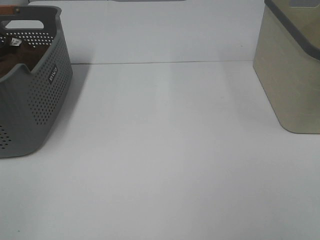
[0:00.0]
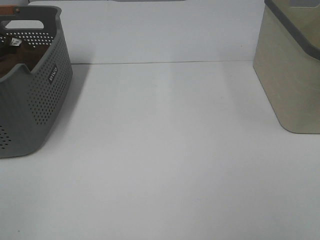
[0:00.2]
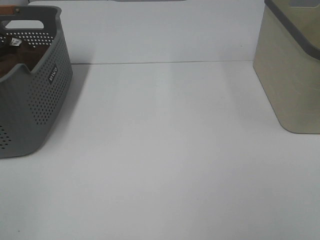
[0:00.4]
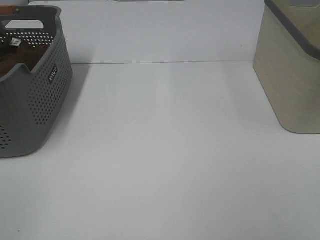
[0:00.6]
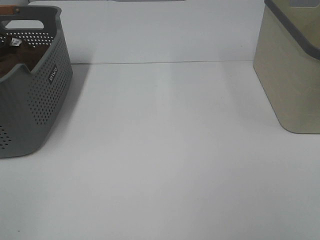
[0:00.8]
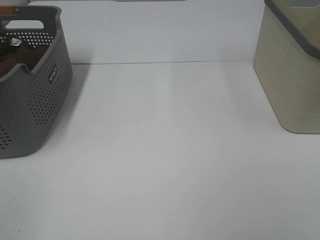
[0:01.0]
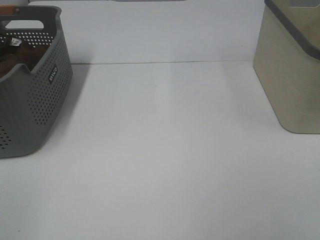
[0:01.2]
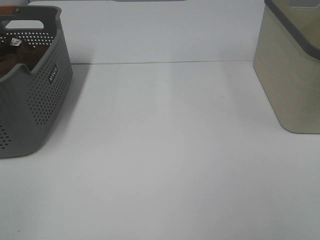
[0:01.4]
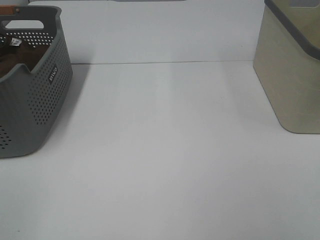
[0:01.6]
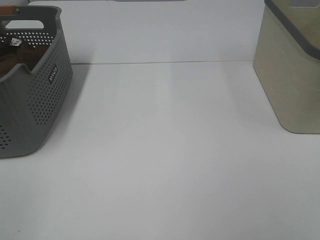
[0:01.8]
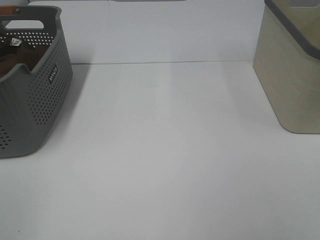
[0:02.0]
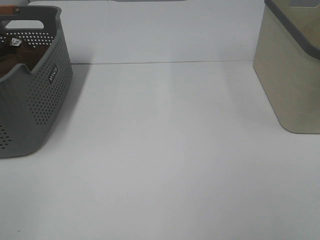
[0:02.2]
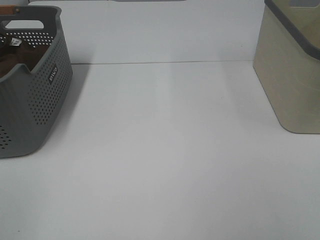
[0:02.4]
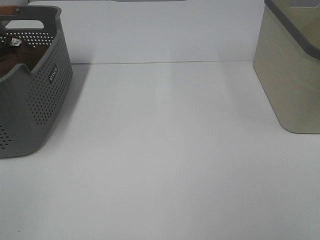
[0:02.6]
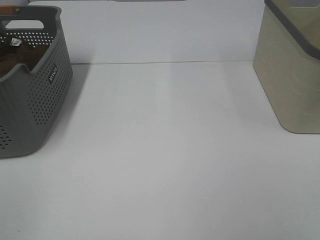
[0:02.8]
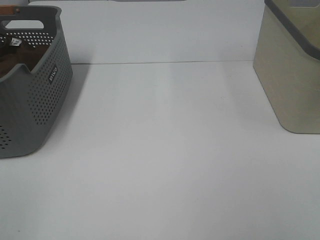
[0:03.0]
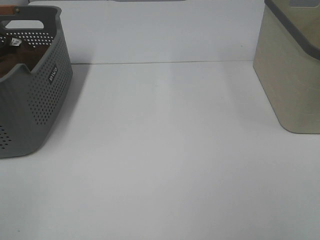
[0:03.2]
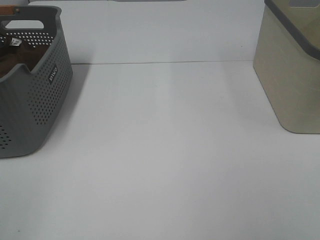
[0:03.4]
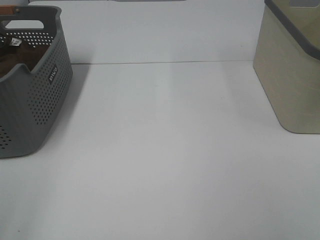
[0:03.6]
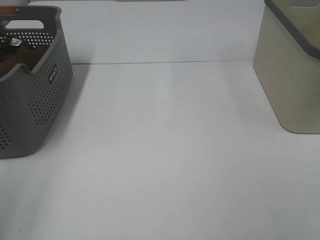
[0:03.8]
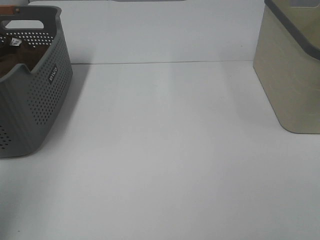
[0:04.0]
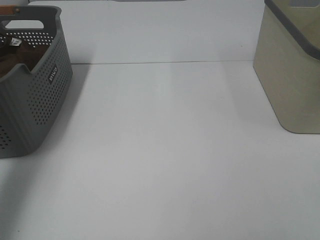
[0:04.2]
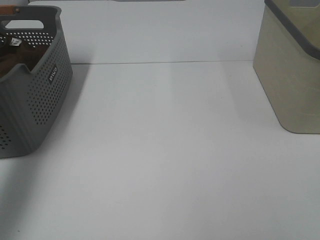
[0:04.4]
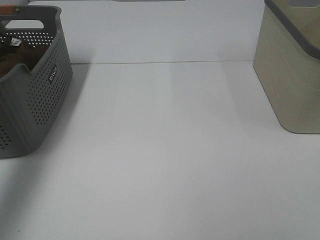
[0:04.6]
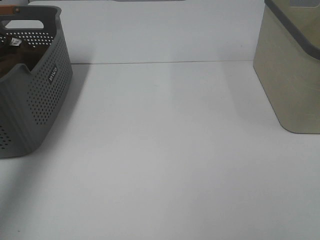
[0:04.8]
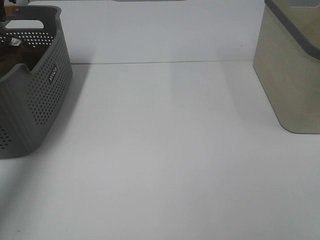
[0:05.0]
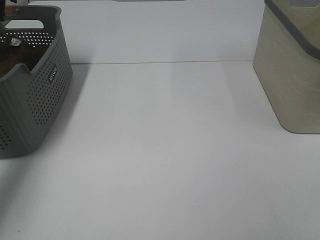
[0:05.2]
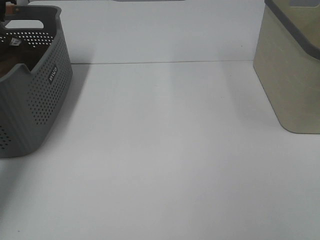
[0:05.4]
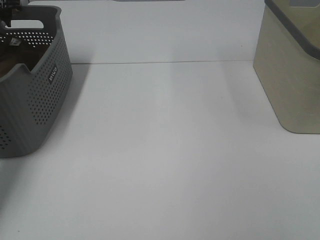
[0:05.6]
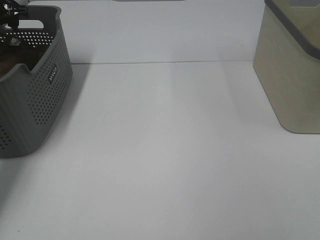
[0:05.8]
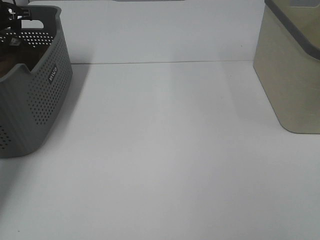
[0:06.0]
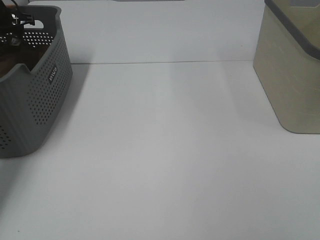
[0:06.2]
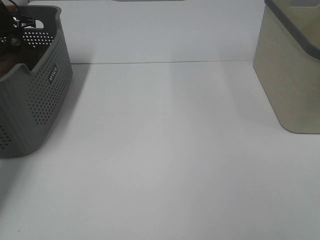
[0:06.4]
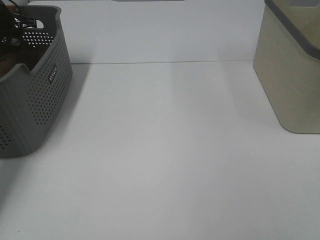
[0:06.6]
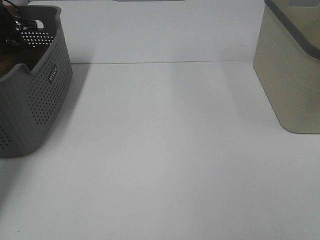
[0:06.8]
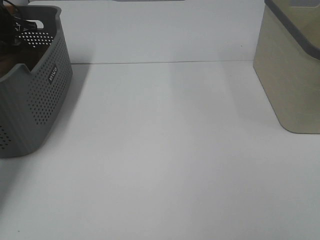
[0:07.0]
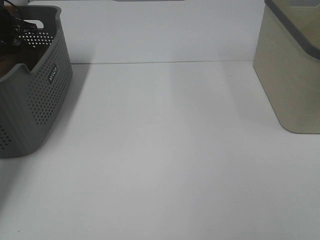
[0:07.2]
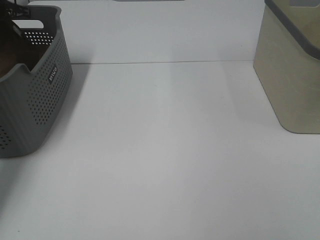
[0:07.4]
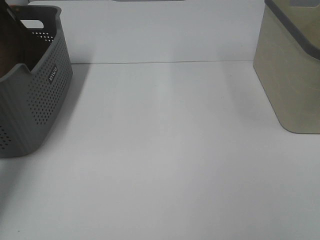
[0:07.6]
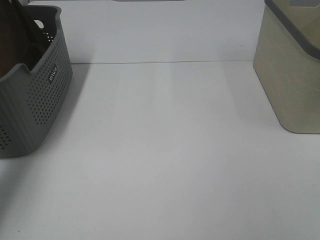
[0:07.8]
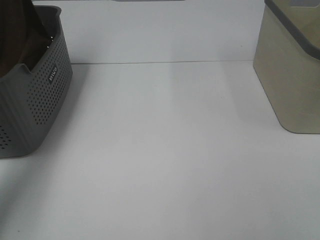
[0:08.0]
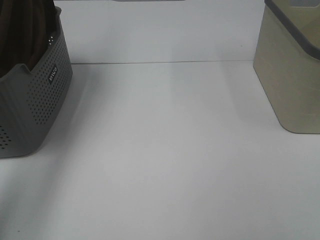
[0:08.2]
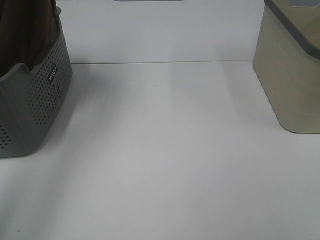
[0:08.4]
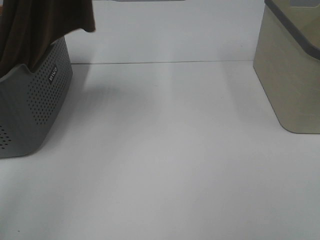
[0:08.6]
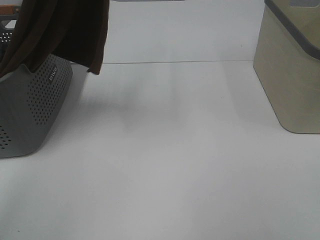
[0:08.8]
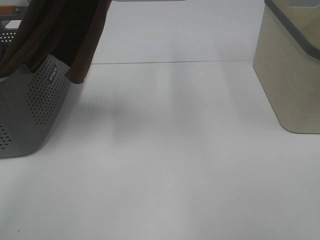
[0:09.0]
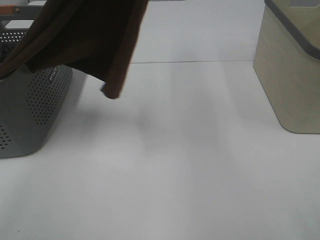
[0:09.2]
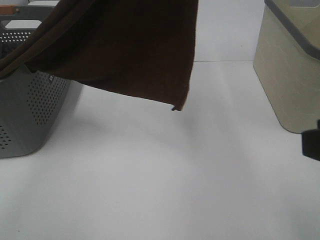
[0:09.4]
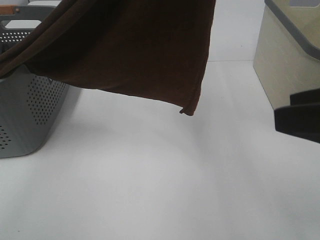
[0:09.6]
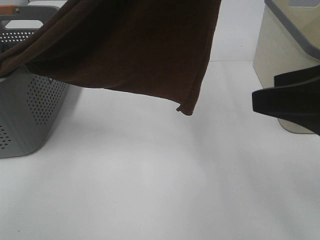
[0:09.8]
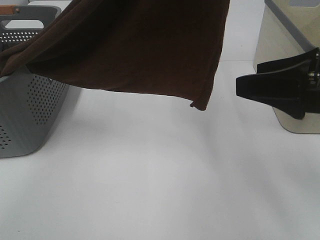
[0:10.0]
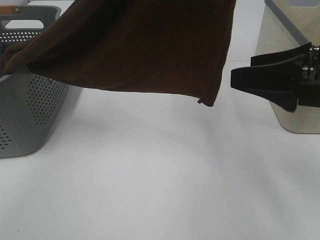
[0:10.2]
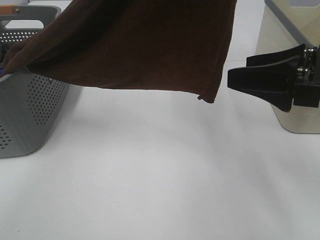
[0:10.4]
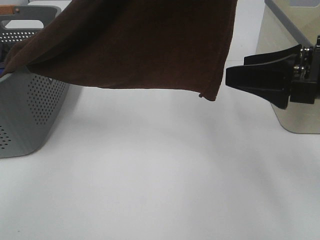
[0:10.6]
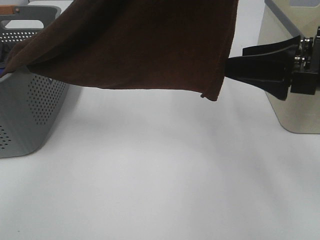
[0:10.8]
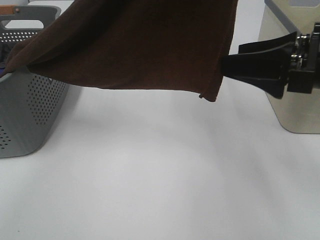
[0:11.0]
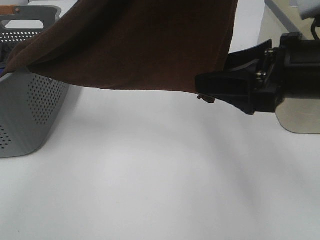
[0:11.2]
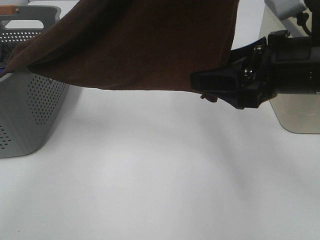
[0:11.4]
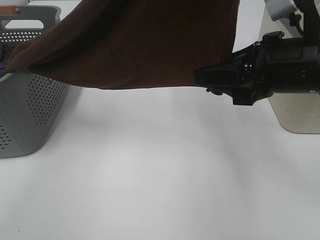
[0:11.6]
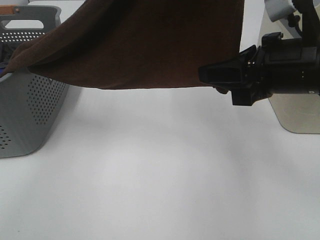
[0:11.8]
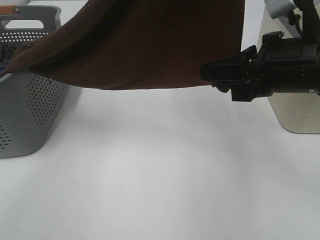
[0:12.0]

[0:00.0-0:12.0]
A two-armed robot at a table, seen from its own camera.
Task of the whole recording: Remove the towel and place it.
Step, 0:07.8 to 0:11.0: Right hand: grab a corner of the brown towel and straighten it.
0:00.0 to 0:03.0: The two grippers keep their place.
0:03.0 to 0:04.4: The left gripper goes about 30 cm forward.
0:04.4 to 0:06.0: The left gripper is displaced forward and downward by approximately 30 cm.
0:07.6 to 0:09.0: The left gripper moves to the right, backward and upward, about 40 cm.
0:09.0 to 0:10.4: The left gripper shifts roughly 10 cm to the right and backward, while the right gripper is displaced forward by approximately 20 cm, and opens.
0:10.4 to 0:12.0: The right gripper shifts by some 5 cm, and closes its fingers.

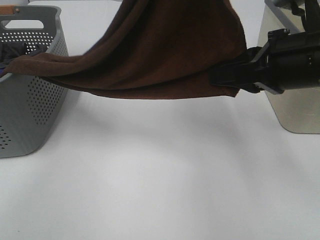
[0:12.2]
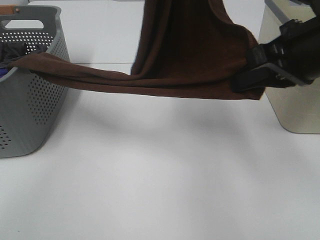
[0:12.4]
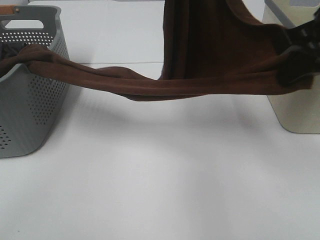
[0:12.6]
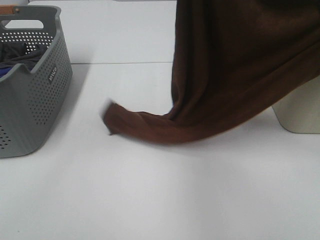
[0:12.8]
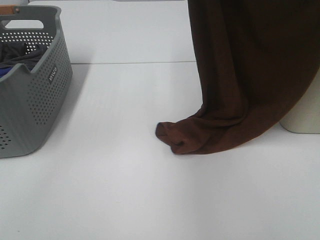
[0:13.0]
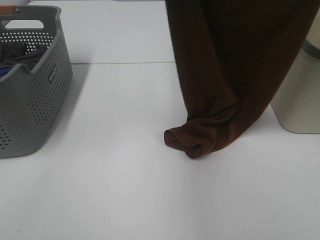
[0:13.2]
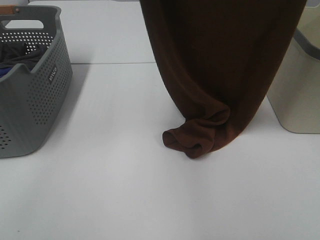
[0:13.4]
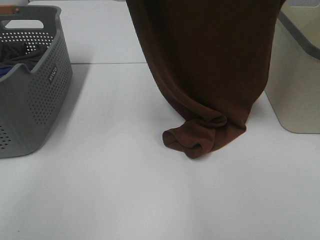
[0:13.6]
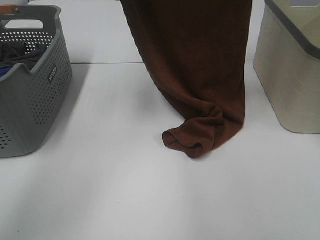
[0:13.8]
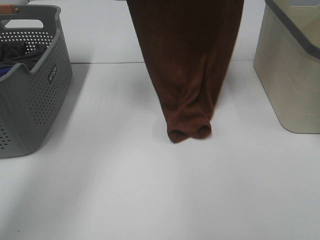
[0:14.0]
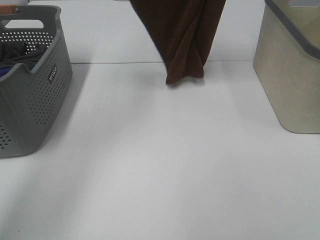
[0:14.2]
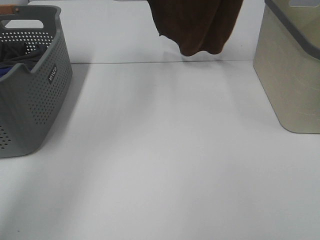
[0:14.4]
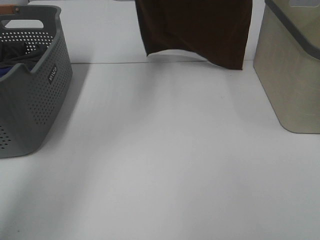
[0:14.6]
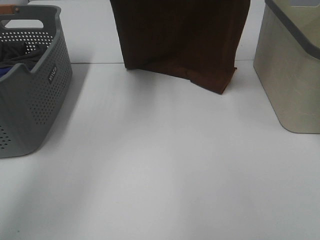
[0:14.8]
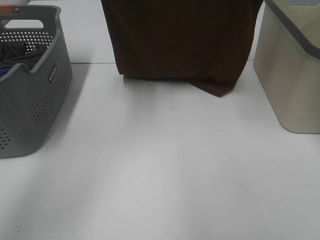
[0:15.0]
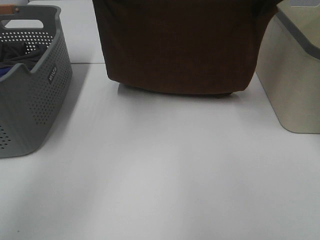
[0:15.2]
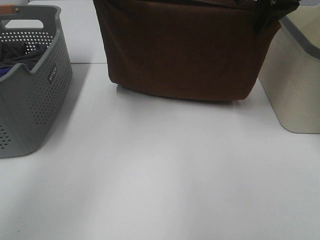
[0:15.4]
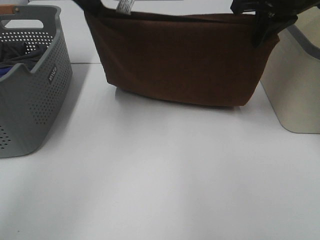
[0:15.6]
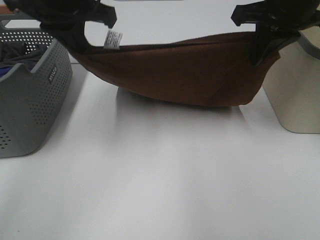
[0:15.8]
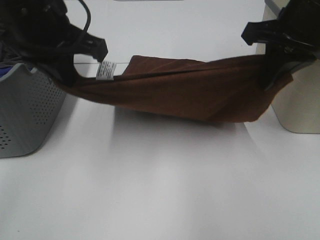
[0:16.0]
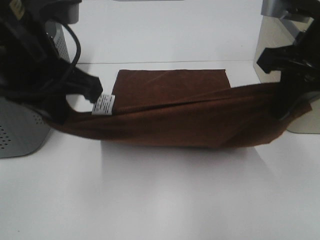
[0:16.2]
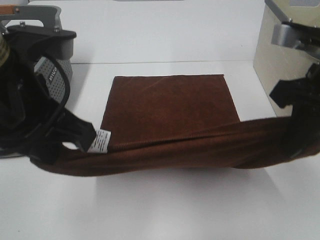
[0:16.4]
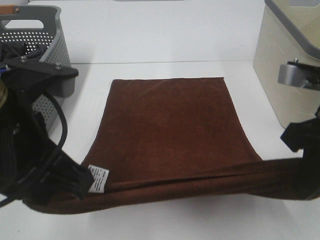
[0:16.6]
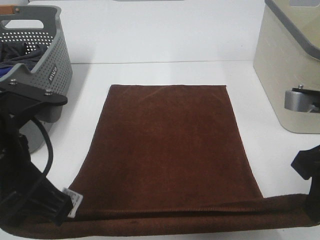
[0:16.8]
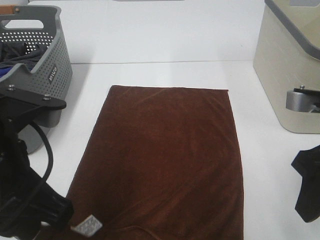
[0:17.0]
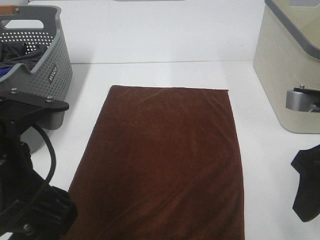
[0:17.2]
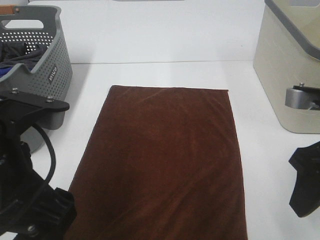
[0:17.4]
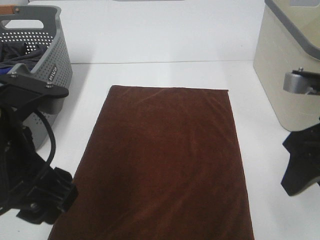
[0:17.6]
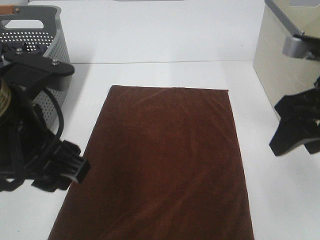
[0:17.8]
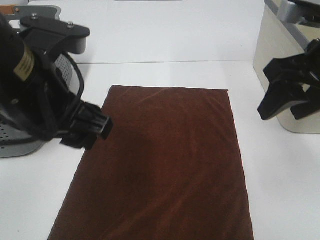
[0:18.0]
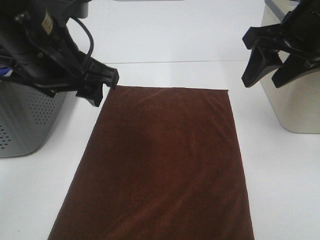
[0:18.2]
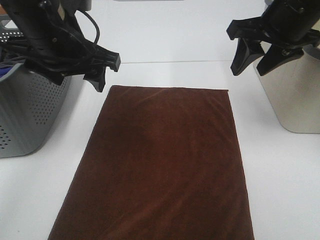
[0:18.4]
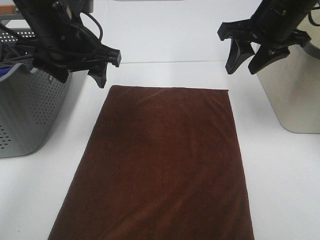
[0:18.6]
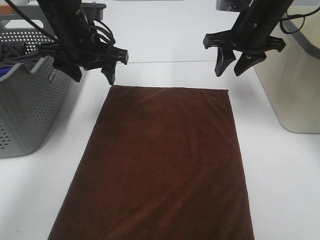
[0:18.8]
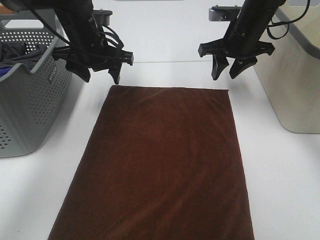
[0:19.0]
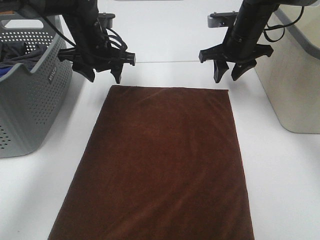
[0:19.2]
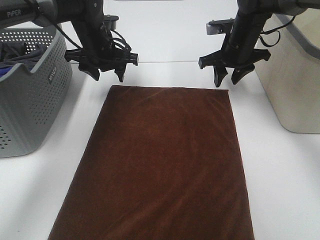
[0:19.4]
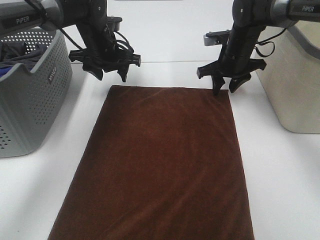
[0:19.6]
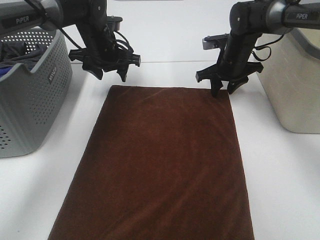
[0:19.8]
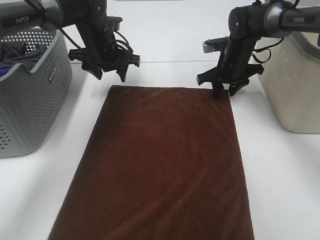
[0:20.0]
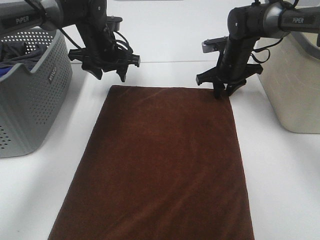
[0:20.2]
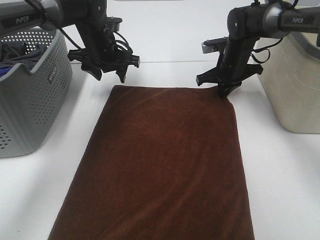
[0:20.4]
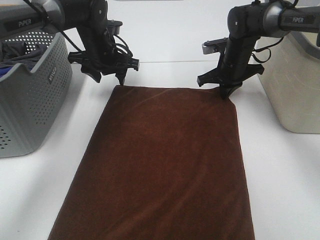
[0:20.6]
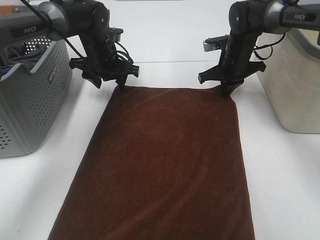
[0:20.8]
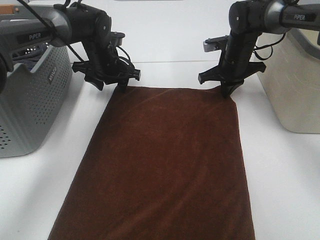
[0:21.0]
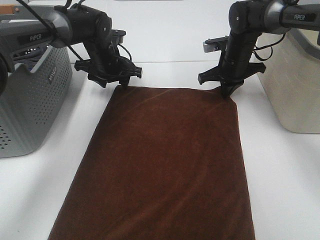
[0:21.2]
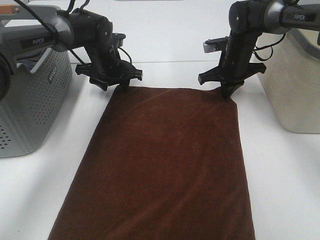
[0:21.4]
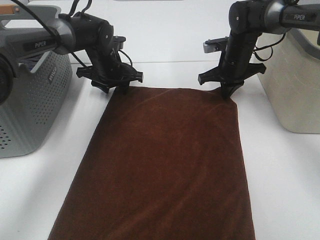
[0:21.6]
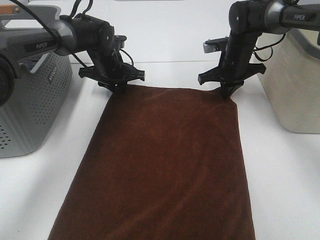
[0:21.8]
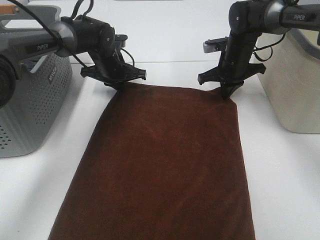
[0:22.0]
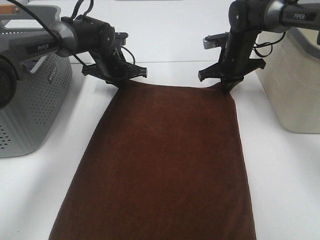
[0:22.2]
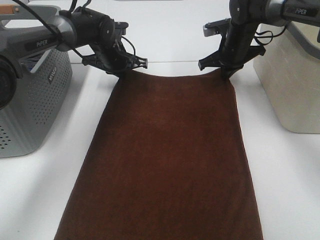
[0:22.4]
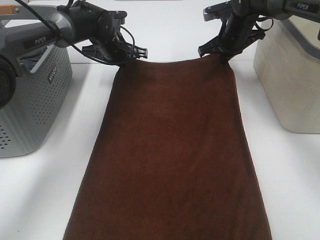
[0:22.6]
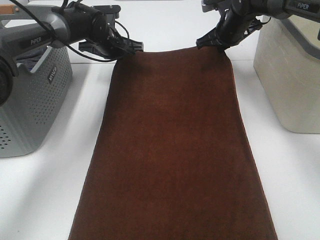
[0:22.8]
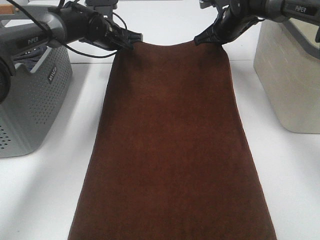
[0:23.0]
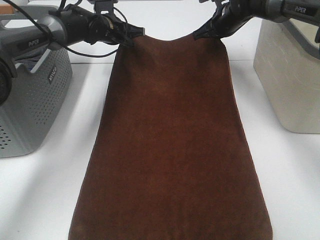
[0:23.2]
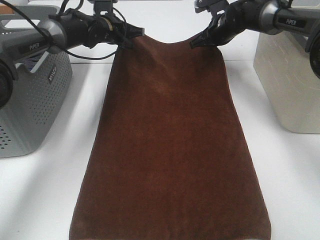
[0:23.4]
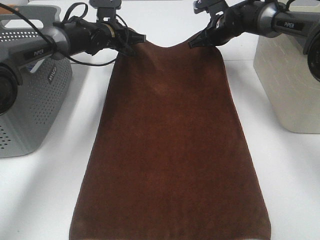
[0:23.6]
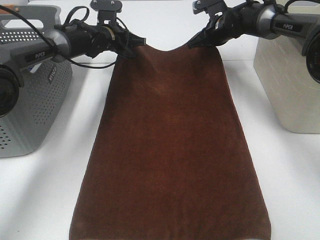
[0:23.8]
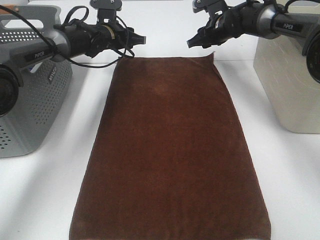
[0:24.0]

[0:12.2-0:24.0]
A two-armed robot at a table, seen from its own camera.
Task of the whole recording: Remove the towel and place it.
Step, 0:12.2 to 0:14.0: Left hand: spread the brown towel flat on the table.
Step, 0:12.2 to 0:14.0: Right hand: spread the brown towel flat on the table.
Step, 0:14.2 to 0:19.4: Left hand:adjust the brown towel.
Step, 0:14.2 to 0:19.4: Right hand:adjust the brown towel.
0:12.2 to 0:13.6: The left gripper shifts approximately 15 cm forward, to the left and downward; the right gripper moves upward and forward, some 15 cm.
0:13.6 to 0:15.2: The left gripper travels downward by approximately 5 cm; the right gripper moves forward, some 5 cm, and reaches roughly 10 cm upward, then returns.
0:15.2 to 0:16.6: The left gripper travels backward by some 25 cm; the right gripper heads backward and downward, covering roughly 25 cm.
0:16.6 to 0:18.2: Both grippers move forward, roughly 10 cm. The left gripper opens its fingers. The right gripper opens up.
0:18.2 to 0:19.6: Both grippers move forward and downward, some 25 cm.
0:19.6 to 0:21.0: The right gripper closes.
0:21.0 to 0:22.6: The right gripper shifts by approximately 5 cm, while the left gripper closes up.
0:22.6 to 0:24.0: The right gripper opens. Meanwhile the left gripper opens its fingers.
